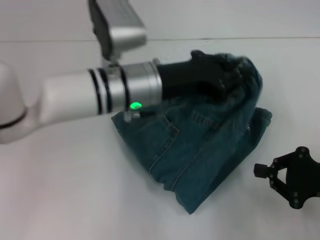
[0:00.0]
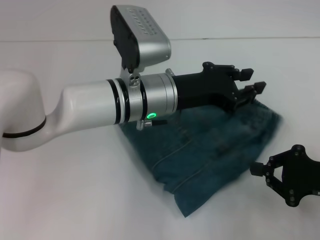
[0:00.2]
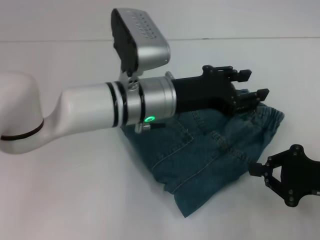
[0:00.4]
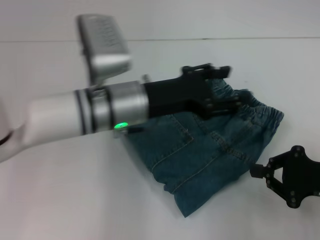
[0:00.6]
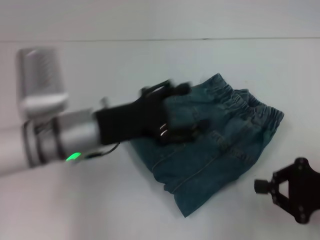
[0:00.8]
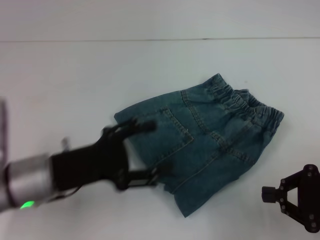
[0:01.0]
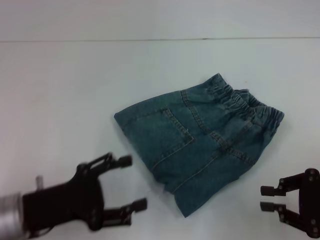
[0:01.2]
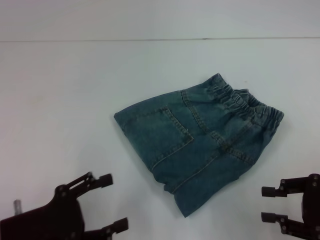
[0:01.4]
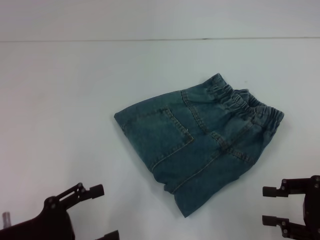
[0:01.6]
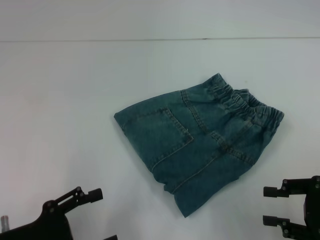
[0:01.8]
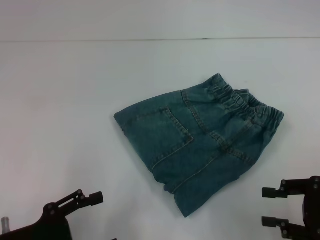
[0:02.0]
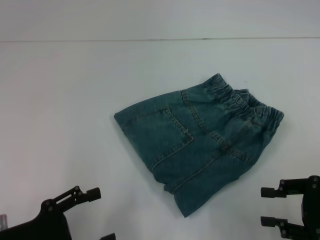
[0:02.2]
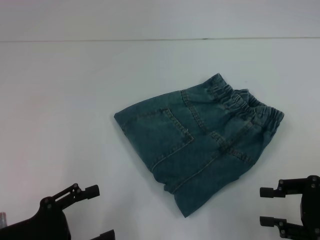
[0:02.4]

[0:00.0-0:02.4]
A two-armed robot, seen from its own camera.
0:00.0 to 0:01.2: The left gripper travels to the left, backward and downward by some 25 cm, and opens up.
0:01.2 to 0:02.4: The right gripper opens, while the left gripper ends up about 5 cm from where it was.
